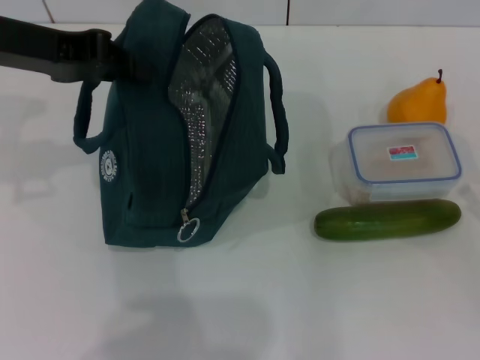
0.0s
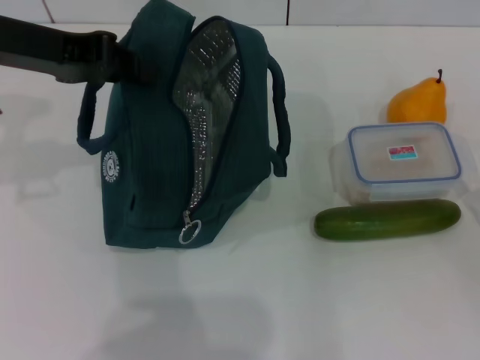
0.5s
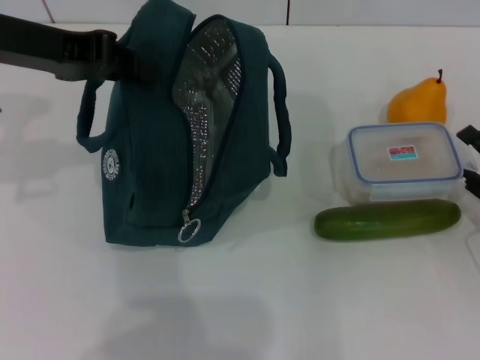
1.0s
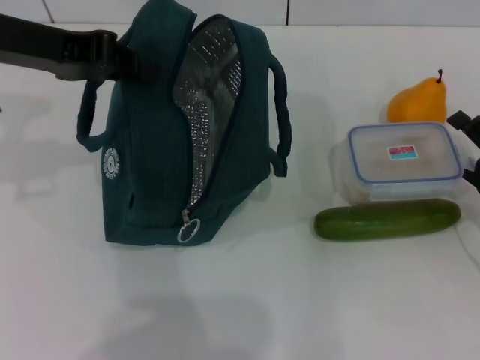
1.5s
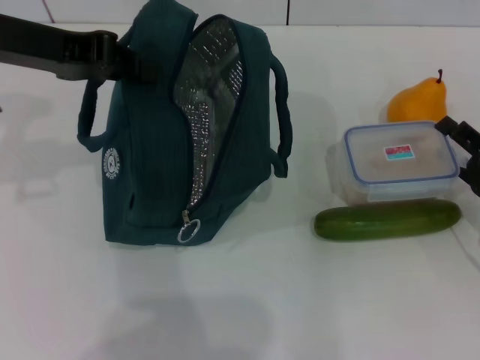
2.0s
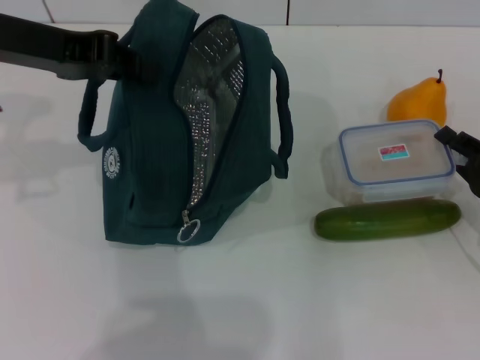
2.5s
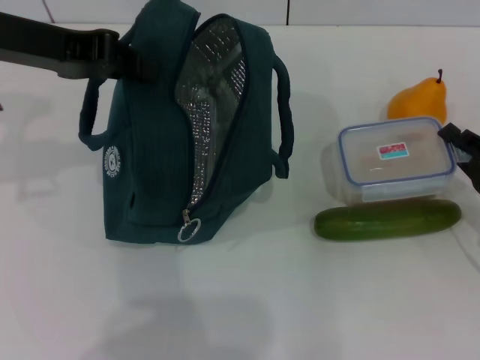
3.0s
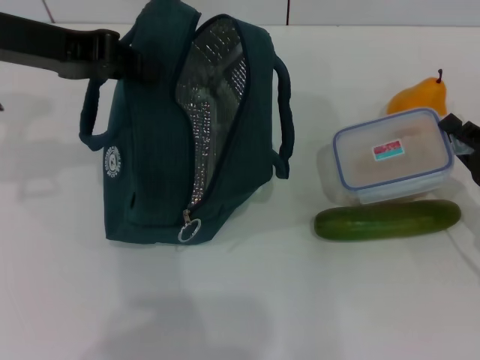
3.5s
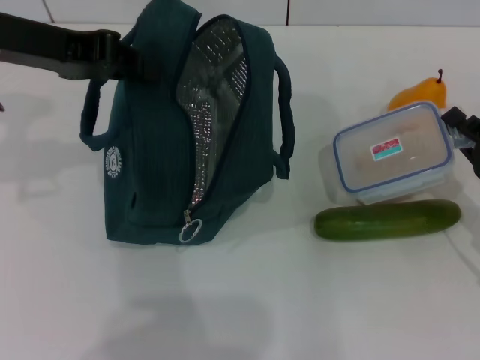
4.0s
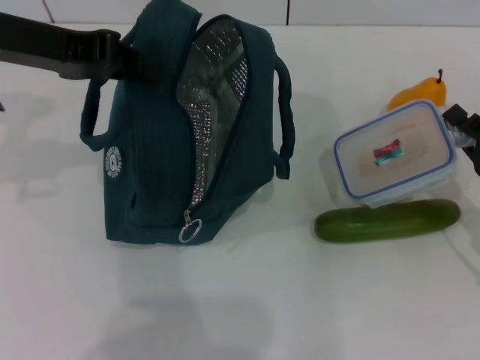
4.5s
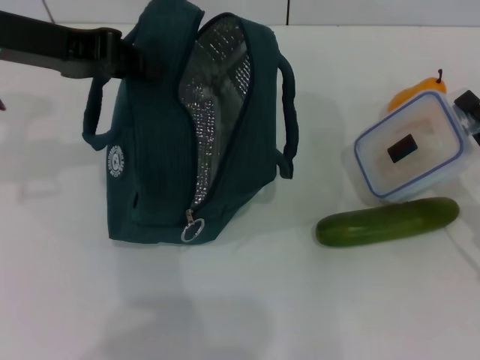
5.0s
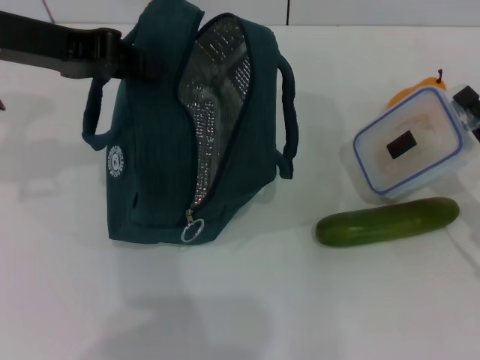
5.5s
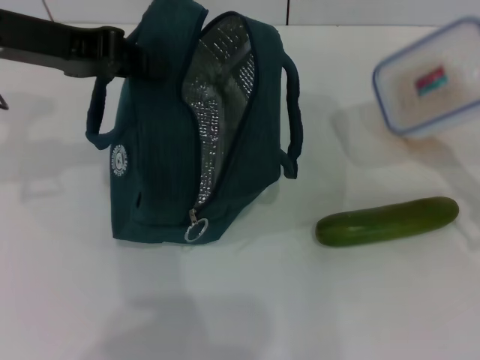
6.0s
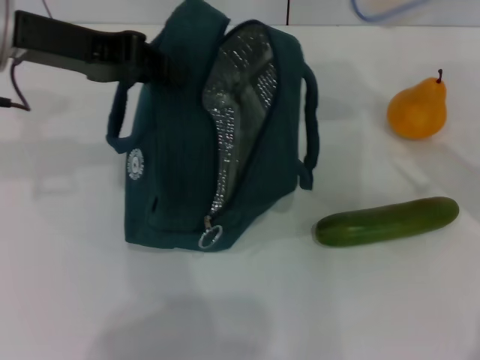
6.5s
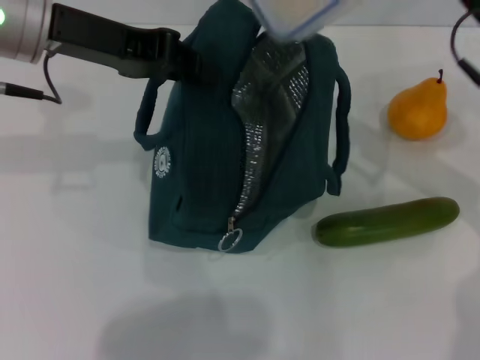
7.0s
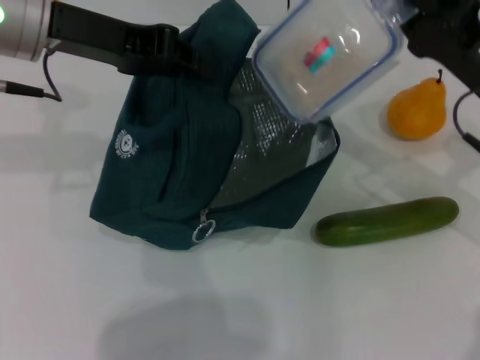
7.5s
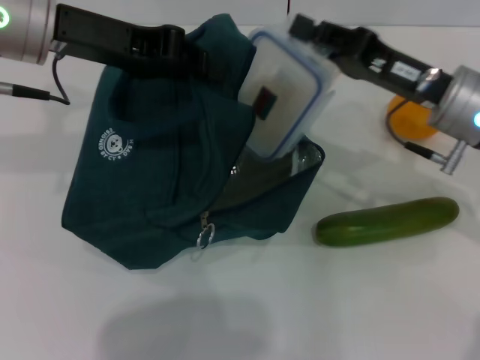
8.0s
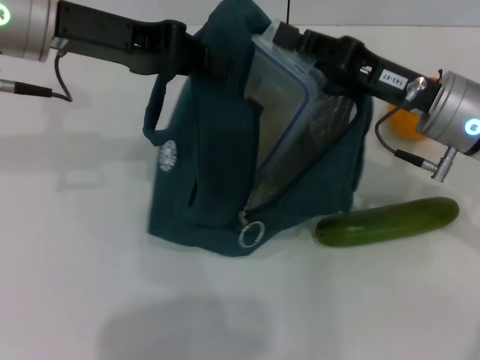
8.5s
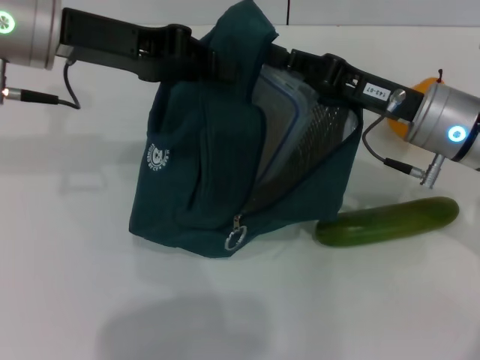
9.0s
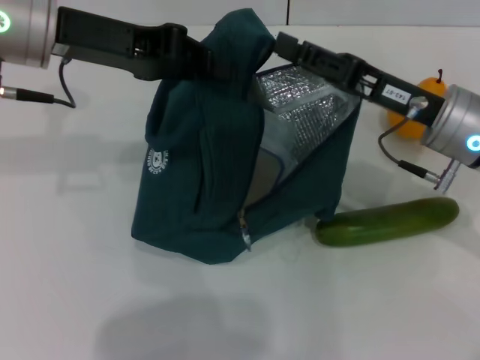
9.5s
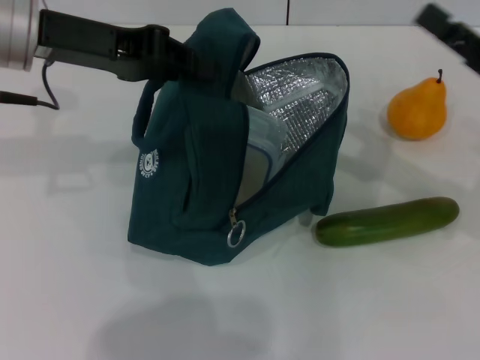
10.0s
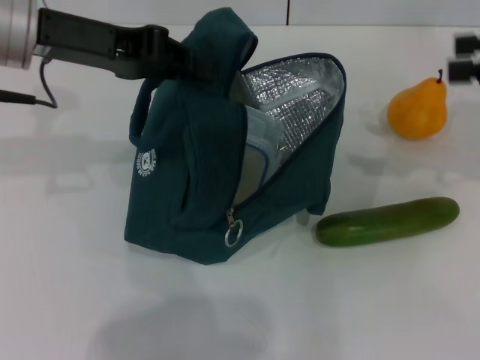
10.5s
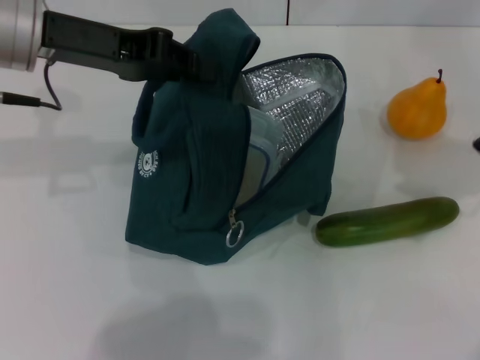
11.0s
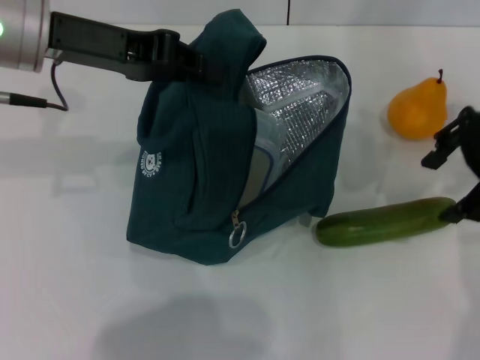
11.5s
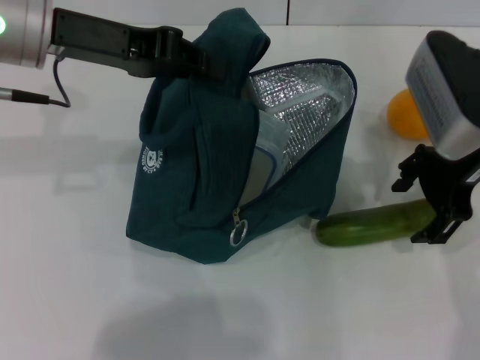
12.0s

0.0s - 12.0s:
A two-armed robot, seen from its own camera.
Step, 0.0s - 3.5s: Pick up the lunch box with your right hand.
Step, 4.0s - 9.5s: Place the lunch box into the lunch bag with your right hand.
0.0s - 2.0s: The right gripper moves forward and to the left, some 10 cm.
2.0s - 4.0s: The right gripper closes.
4.0s - 6.0s: The grippers make only small movements.
6.0s - 8.0s: The right gripper shifts some 15 cm to the left and forward.
8.0s - 10.0s: The right gripper goes about 10 cm to the right, and opens up.
10.0s - 12.0s: The right gripper shifts roughly 10 cm to the left, upward and forward.

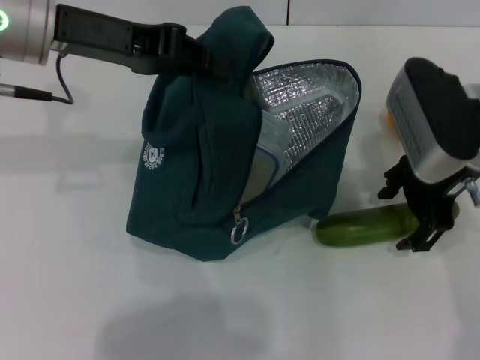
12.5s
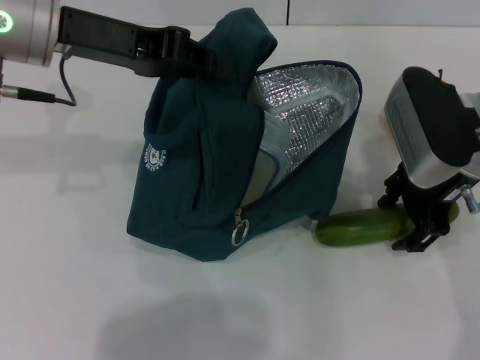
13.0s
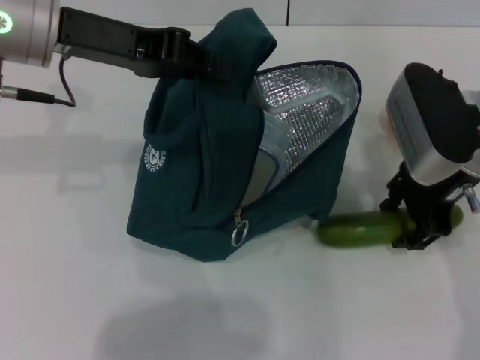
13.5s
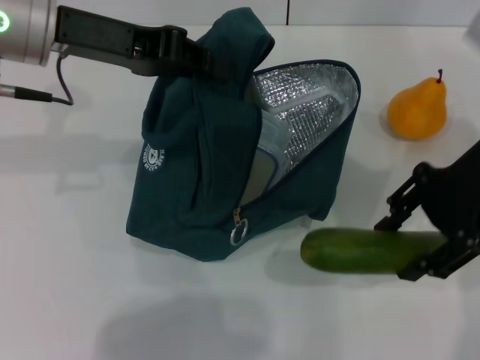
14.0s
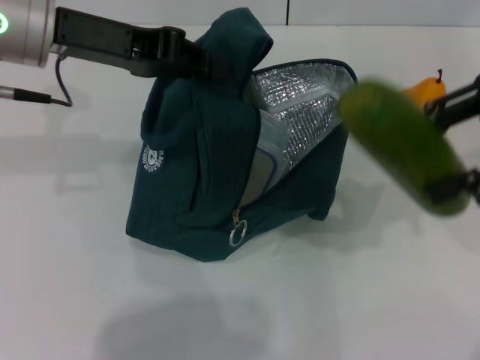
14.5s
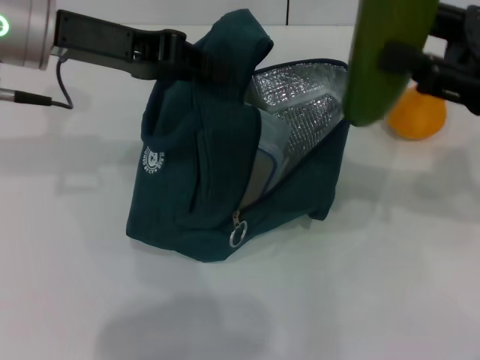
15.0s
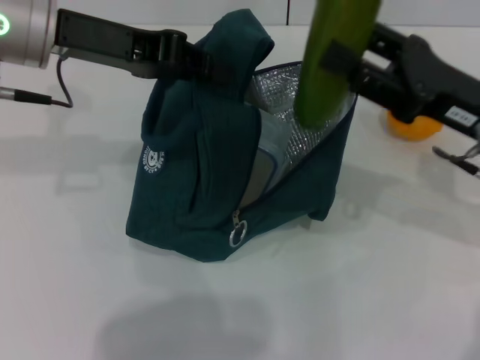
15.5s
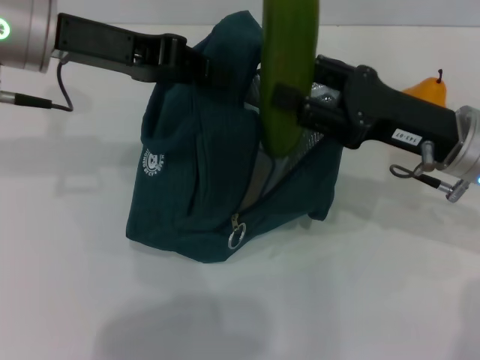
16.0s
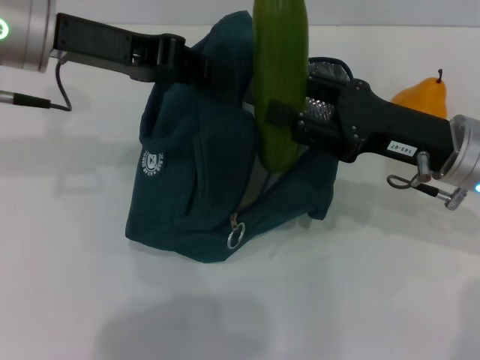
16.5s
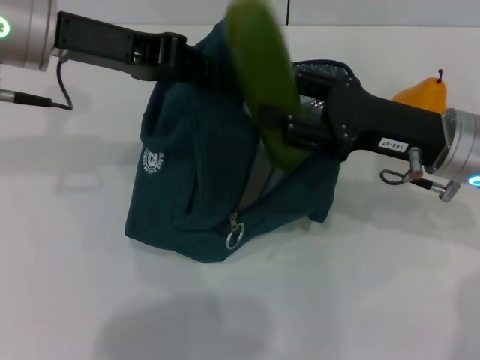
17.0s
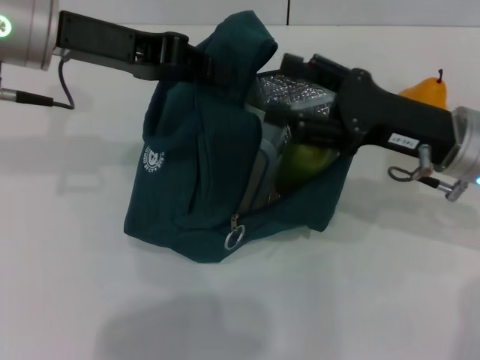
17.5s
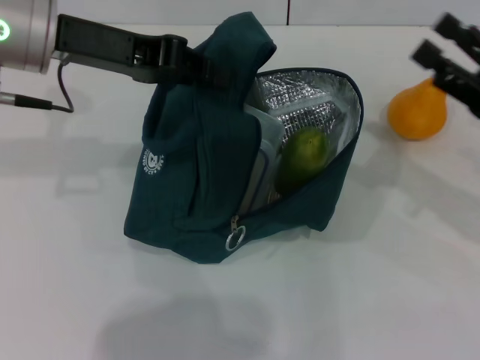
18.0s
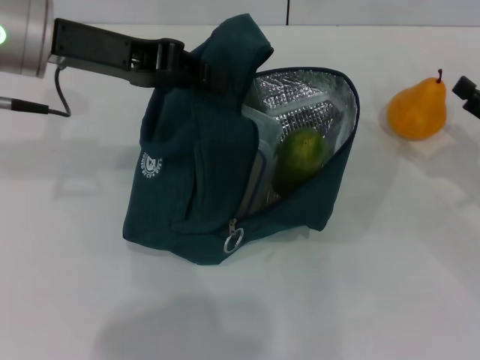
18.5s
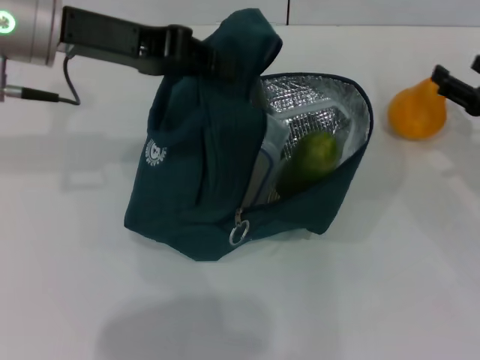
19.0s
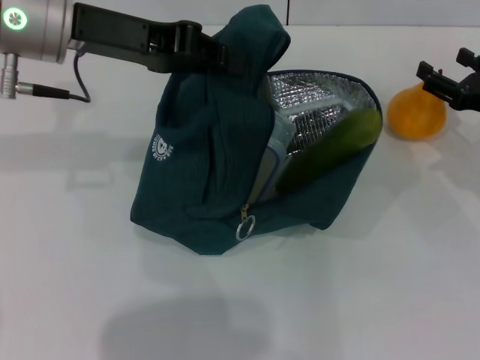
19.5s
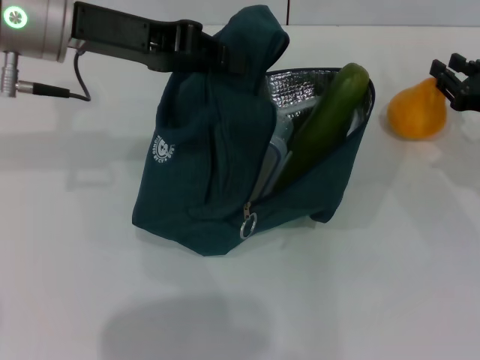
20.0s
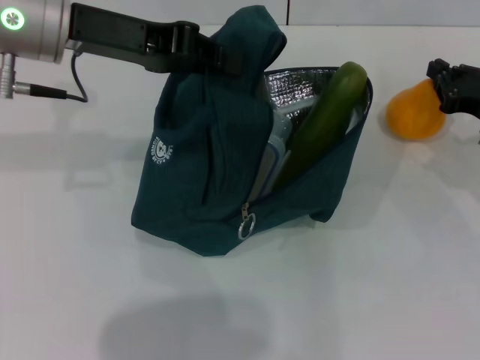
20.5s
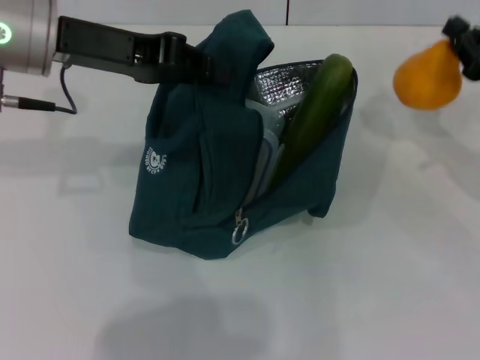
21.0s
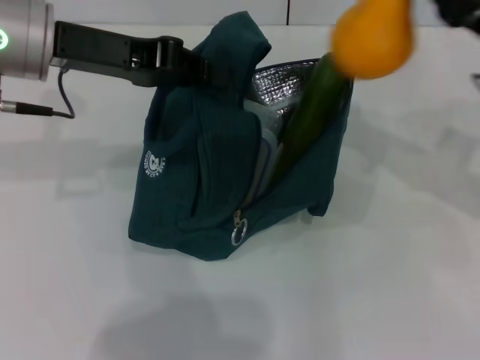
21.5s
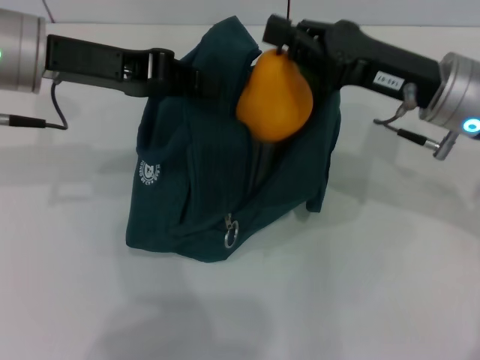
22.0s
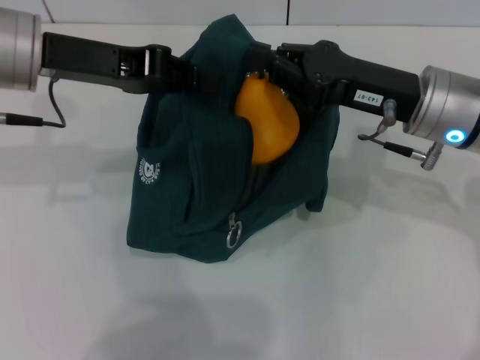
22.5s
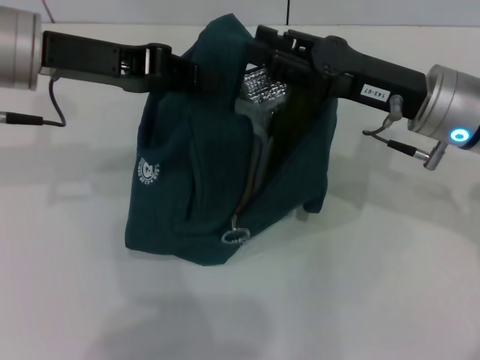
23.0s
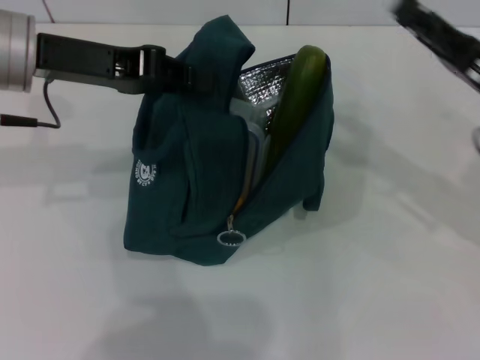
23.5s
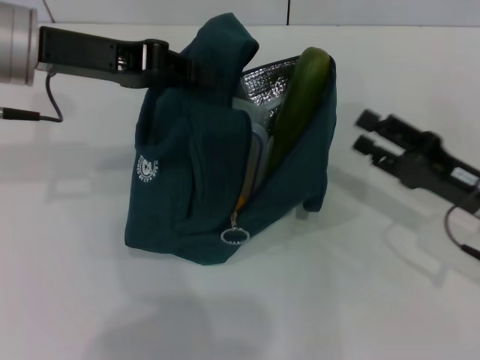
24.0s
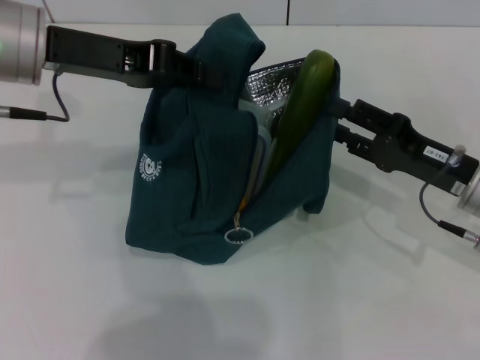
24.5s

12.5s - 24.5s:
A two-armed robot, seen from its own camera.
Step, 13.5s - 17.5s: Put the cucumber into the lunch bag with your right hand.
Step, 18.5s - 20.0s: Grab the pear with your right hand.
12.5s - 14.5s: The right gripper goes approximately 15 cm to the right and upward.
14.5s - 16.5s: The right gripper travels downward and to the left by about 15 cm.
16.5s - 18.5s: The right gripper heads to the right, covering about 15 cm.
18.5s - 20.5s: The right gripper shifts roughly 5 cm forward, and closes.
20.5s - 22.5s: The right gripper shifts approximately 15 cm to the left and upward.
22.5s - 24.5s: The right gripper moves downward and to the right, roughly 10 cm, and opens up.

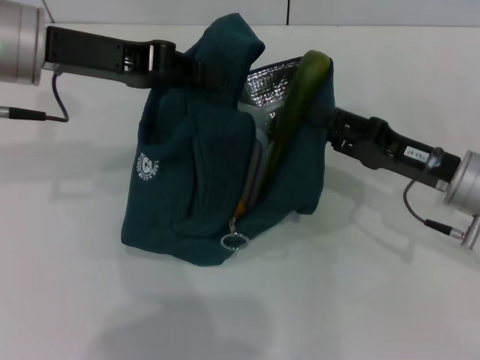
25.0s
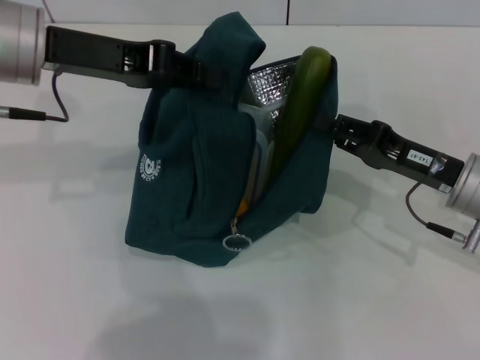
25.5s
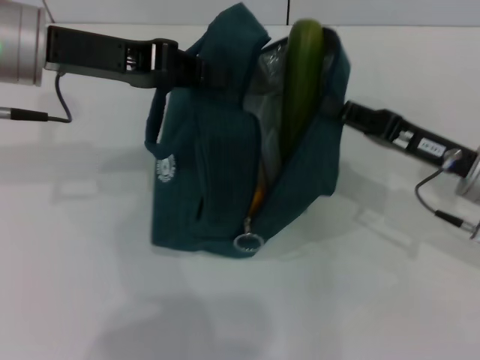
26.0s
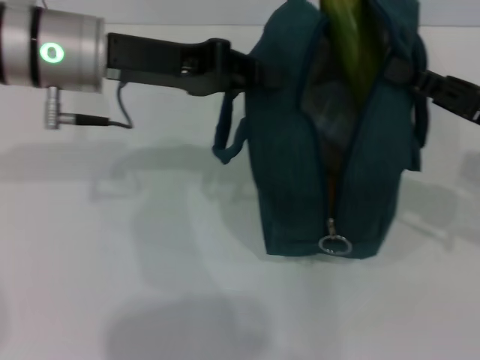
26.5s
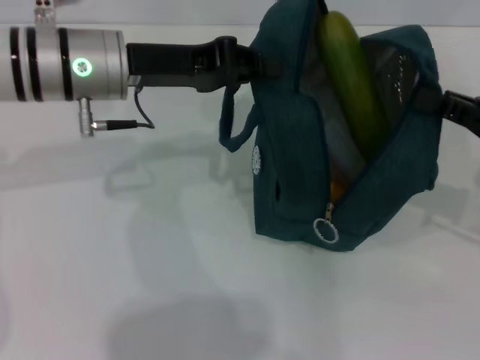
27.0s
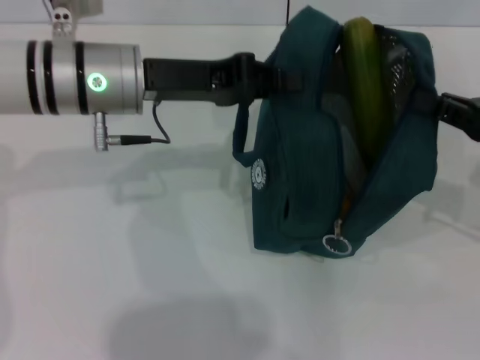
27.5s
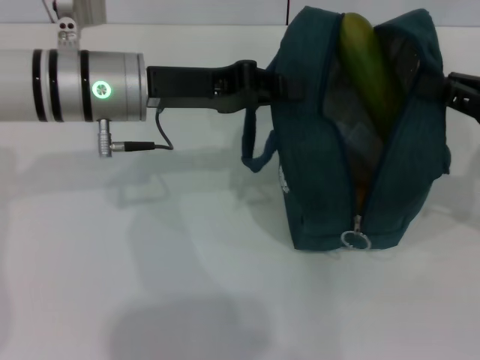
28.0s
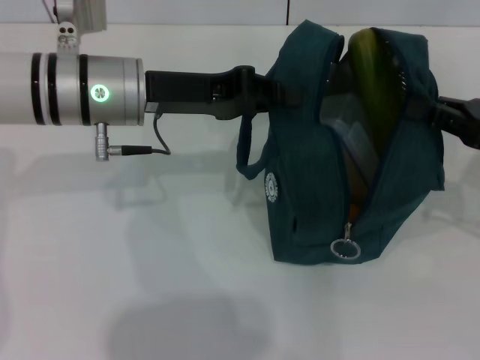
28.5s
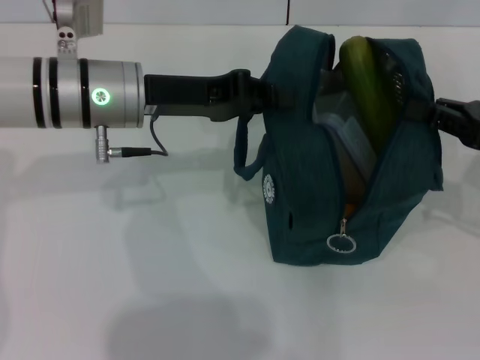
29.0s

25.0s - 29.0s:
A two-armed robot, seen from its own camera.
25.0s - 27.0s: The right gripper moves to the right and upward, approximately 10 cm, and closes up; the left gripper shifts some 5 cm downward.
